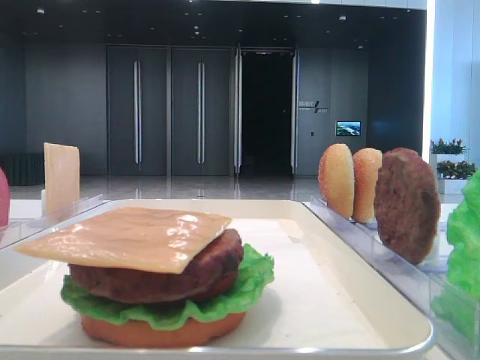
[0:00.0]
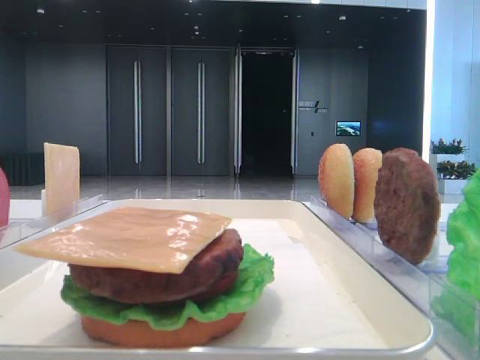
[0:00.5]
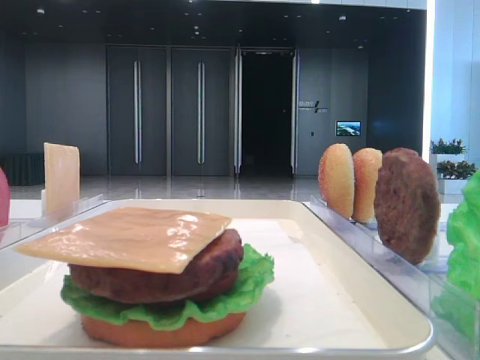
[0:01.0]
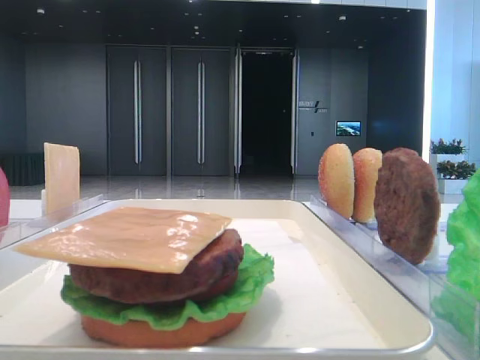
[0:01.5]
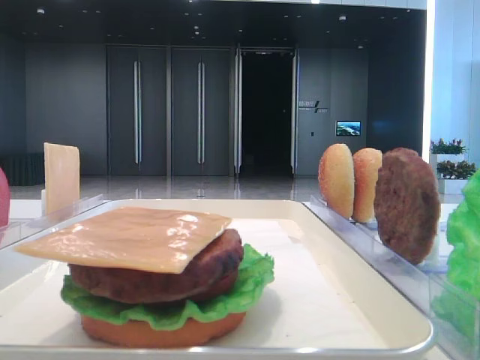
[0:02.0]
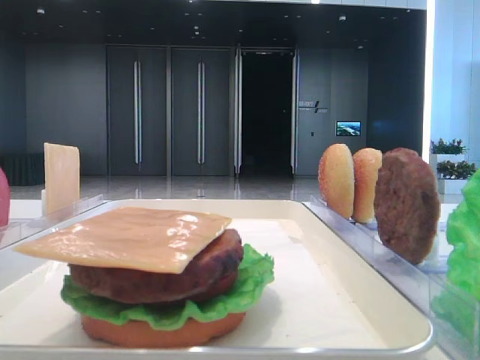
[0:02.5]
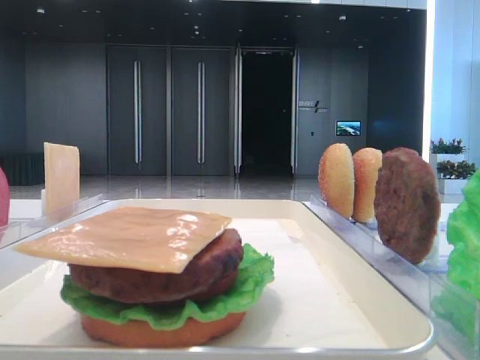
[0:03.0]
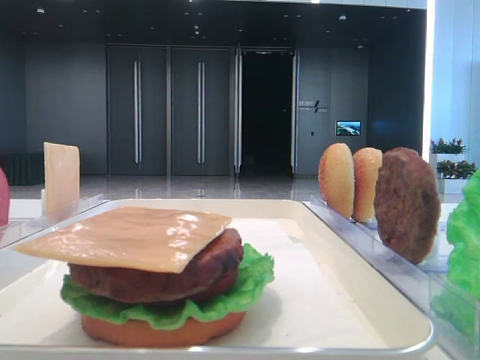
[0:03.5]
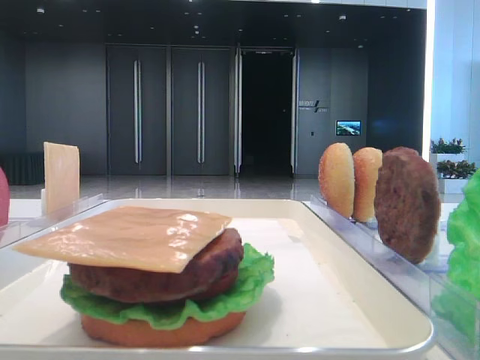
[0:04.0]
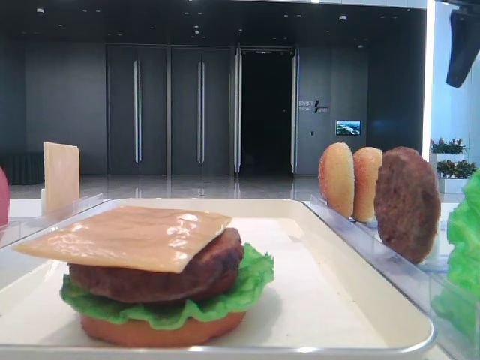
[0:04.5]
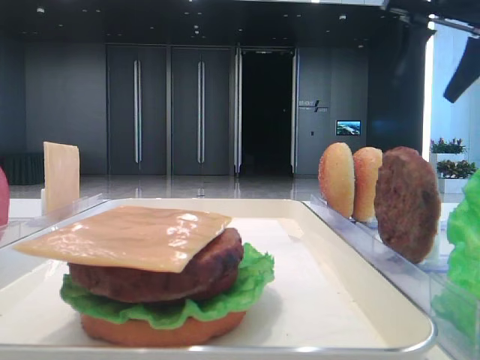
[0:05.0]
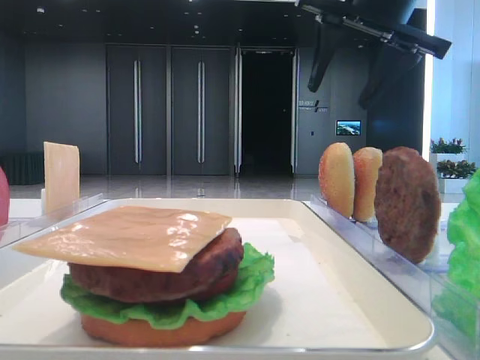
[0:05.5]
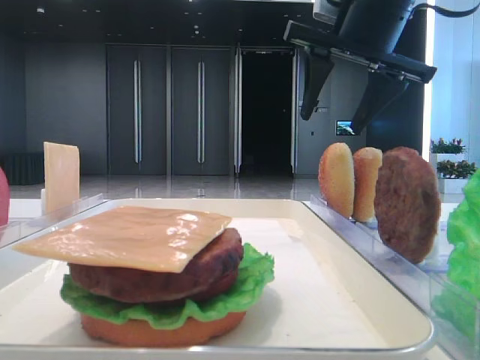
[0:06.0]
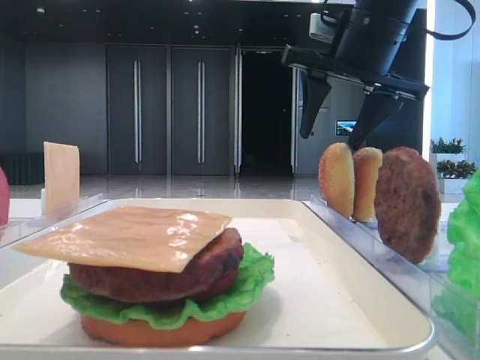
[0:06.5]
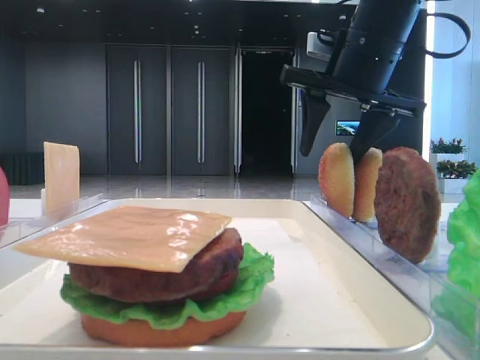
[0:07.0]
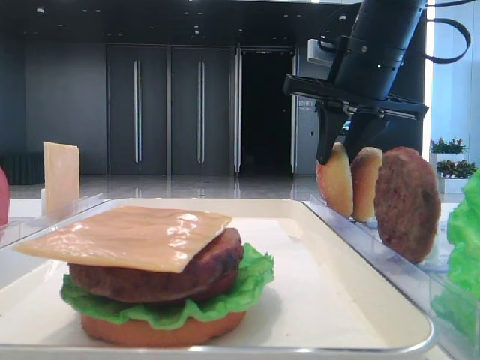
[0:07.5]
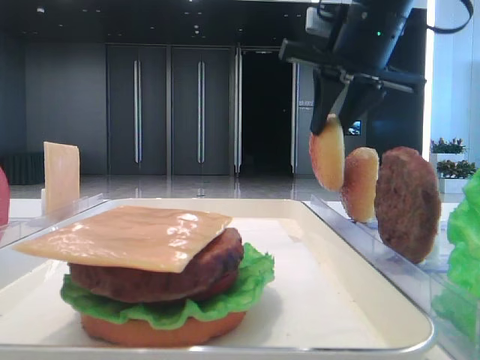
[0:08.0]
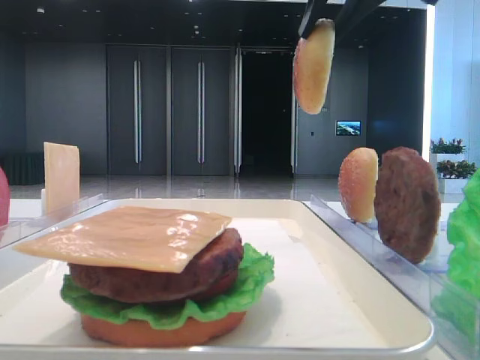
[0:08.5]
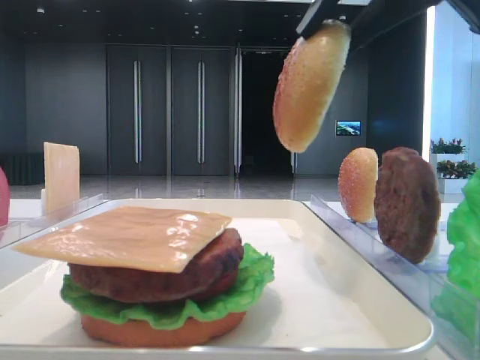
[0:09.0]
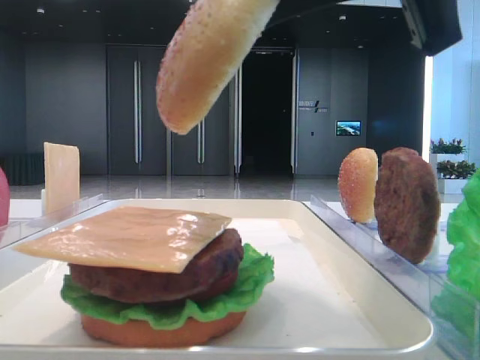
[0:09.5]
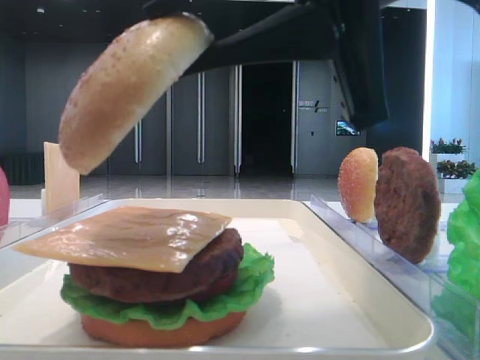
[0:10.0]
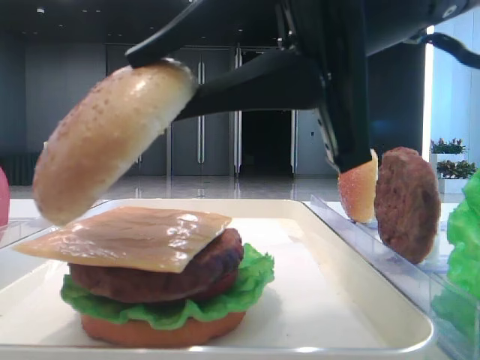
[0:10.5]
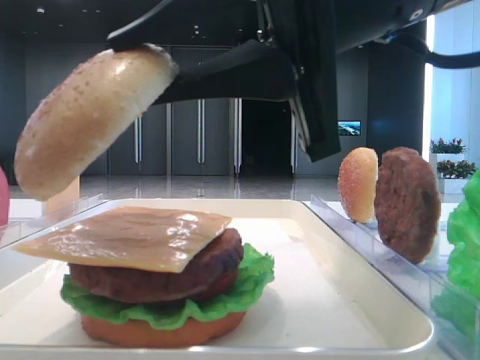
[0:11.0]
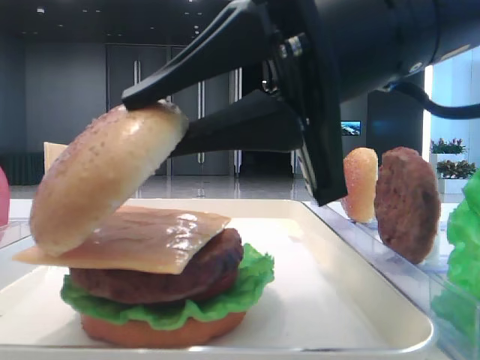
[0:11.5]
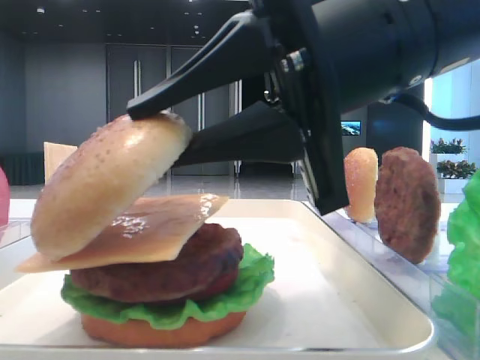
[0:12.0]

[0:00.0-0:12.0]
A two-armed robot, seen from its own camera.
Step, 0:00.0 to 0:07.5: Pick up the top bread slice with the right hand.
0:04.0 to 0:06.0: The right gripper heads to the left and forward, covering about 15 cm.
0:06.0 to 0:08.0: The right gripper closes.
0:08.0 to 0:10.0: The right gripper moves backward, roughly 20 cm.
0:10.0 to 0:12.0: The right gripper travels downward by approximately 5 cm.

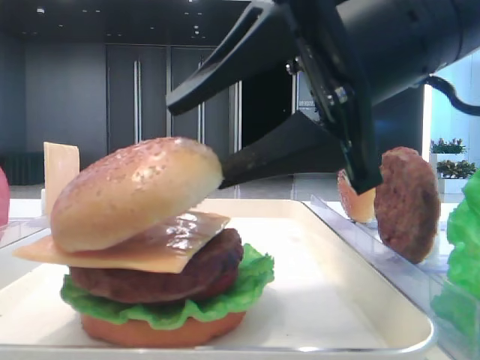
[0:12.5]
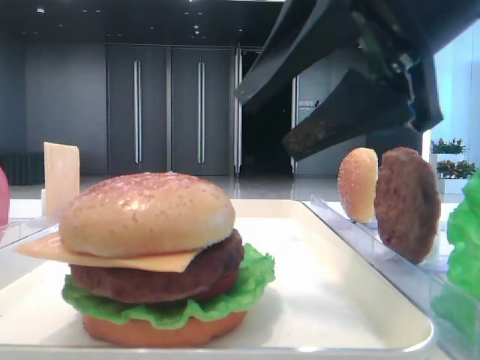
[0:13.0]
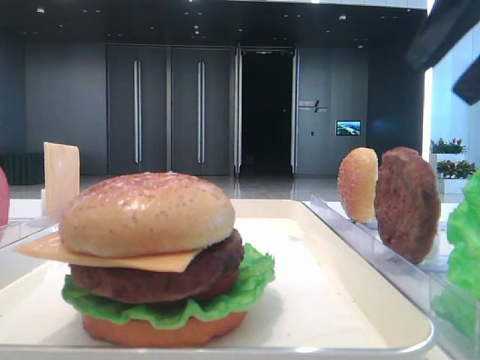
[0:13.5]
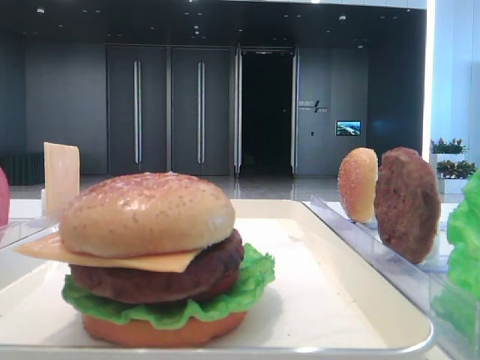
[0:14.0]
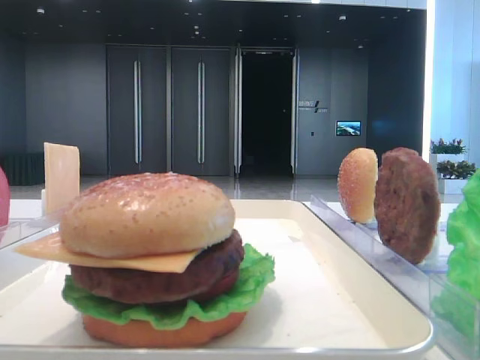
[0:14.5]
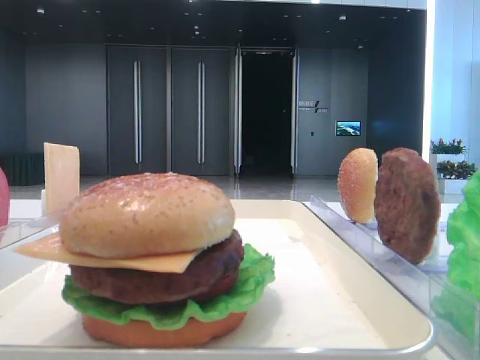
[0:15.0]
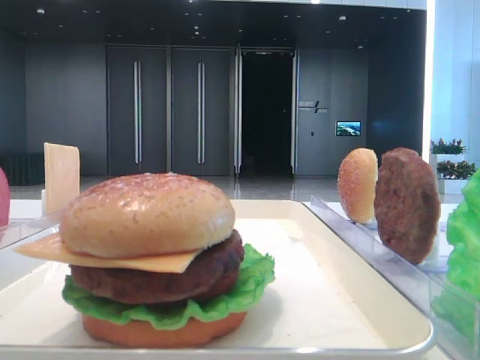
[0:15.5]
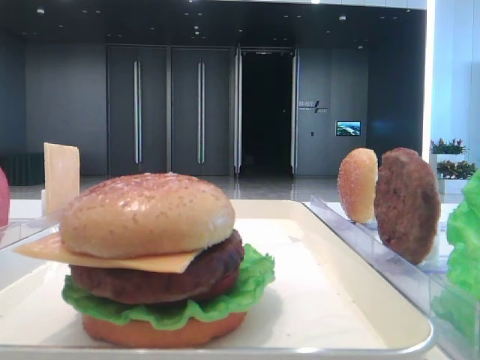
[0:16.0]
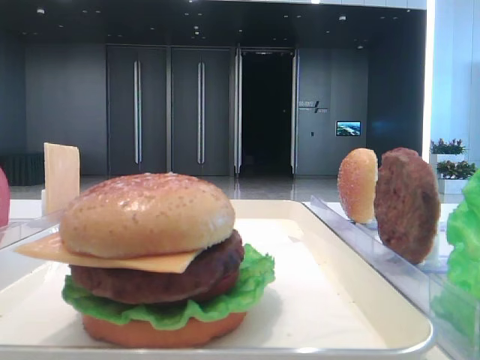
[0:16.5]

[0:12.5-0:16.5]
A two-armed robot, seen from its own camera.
0:12.5 to 0:14.5: The right gripper is displaced to the right, backward and upward by approximately 25 cm.

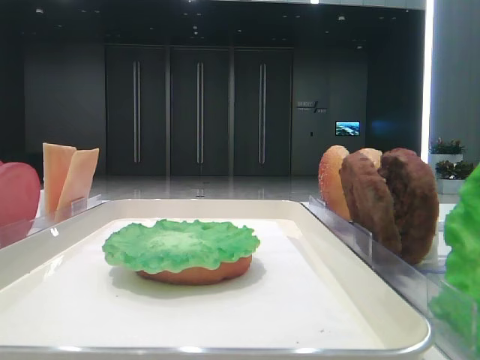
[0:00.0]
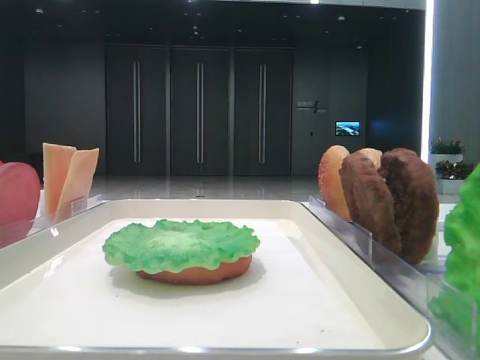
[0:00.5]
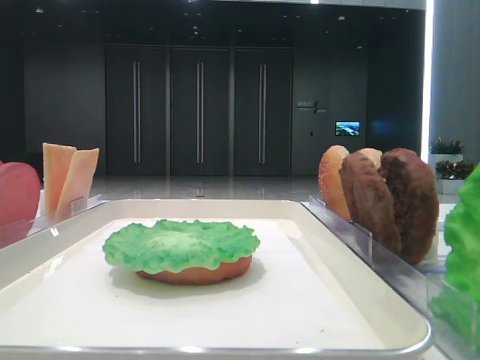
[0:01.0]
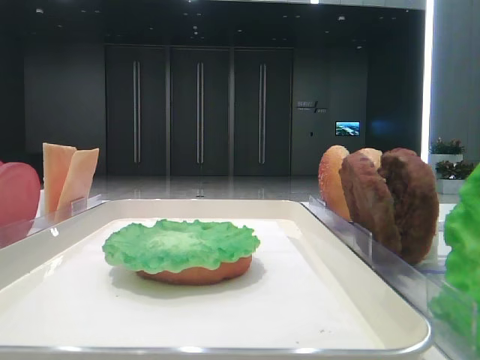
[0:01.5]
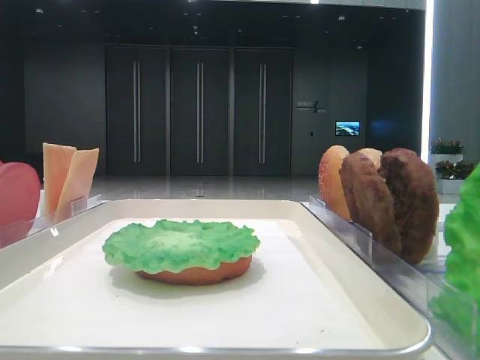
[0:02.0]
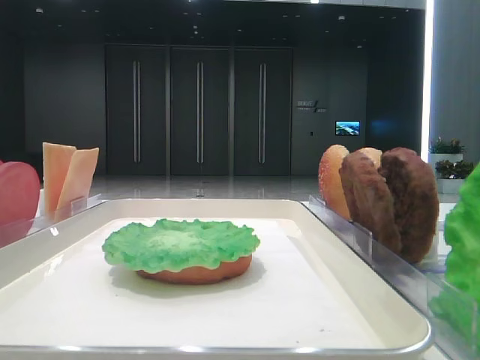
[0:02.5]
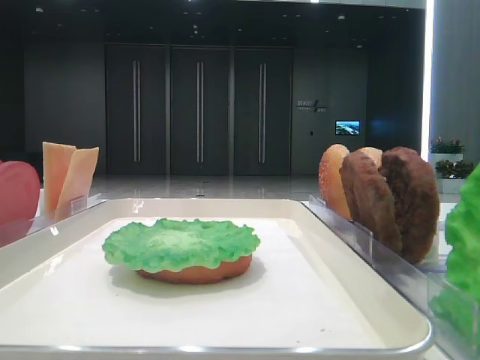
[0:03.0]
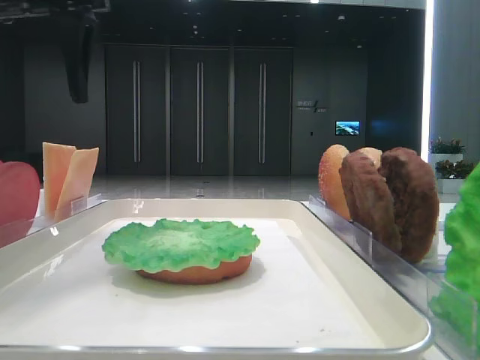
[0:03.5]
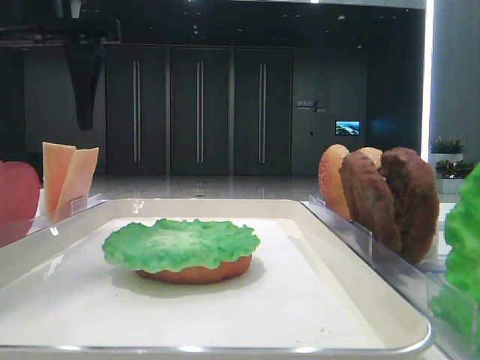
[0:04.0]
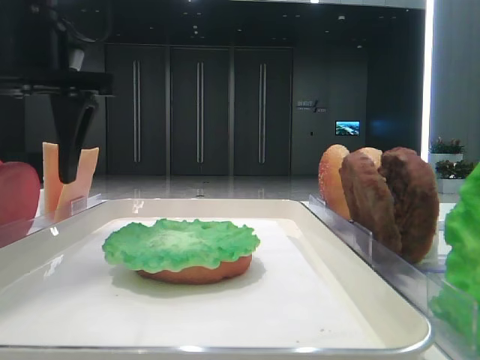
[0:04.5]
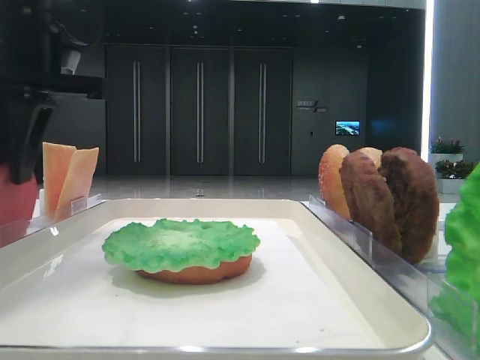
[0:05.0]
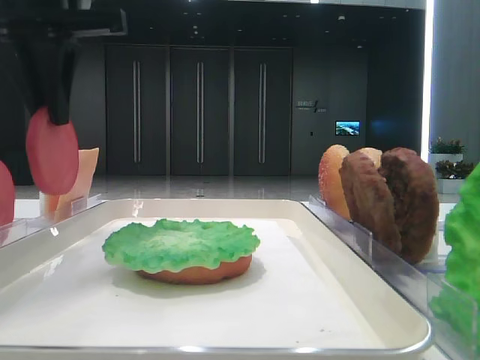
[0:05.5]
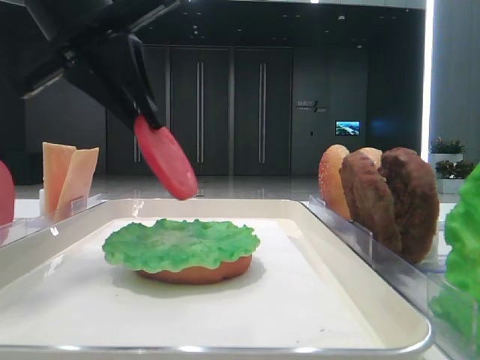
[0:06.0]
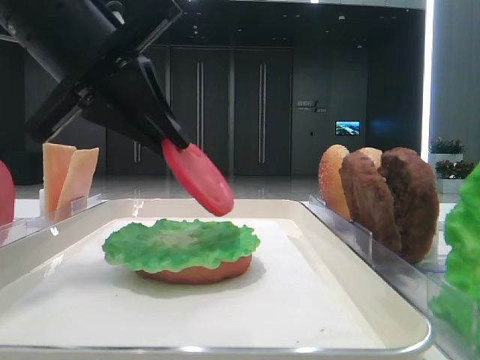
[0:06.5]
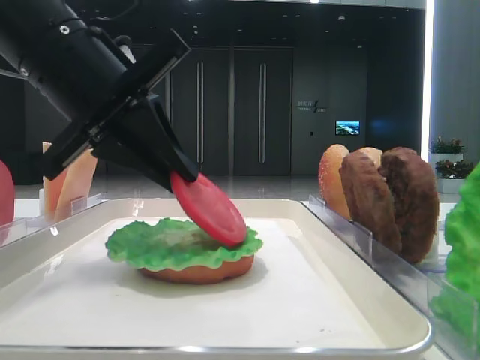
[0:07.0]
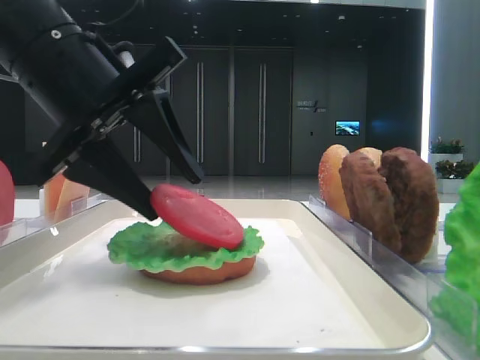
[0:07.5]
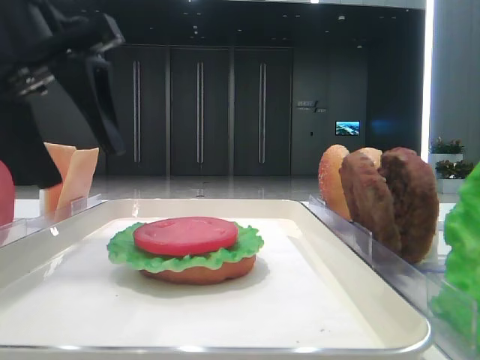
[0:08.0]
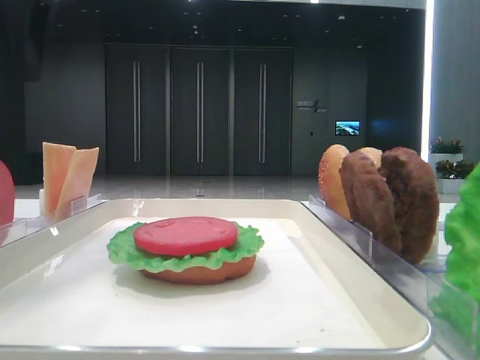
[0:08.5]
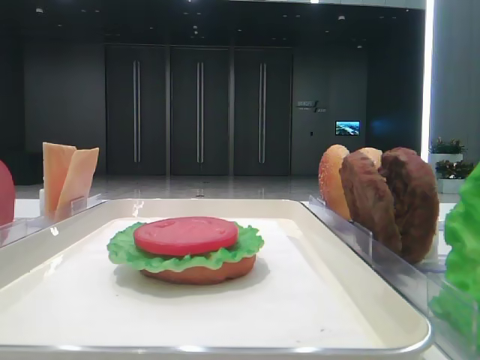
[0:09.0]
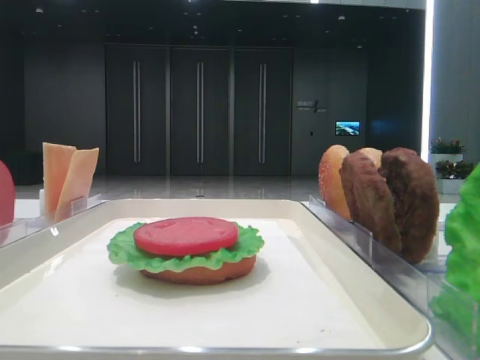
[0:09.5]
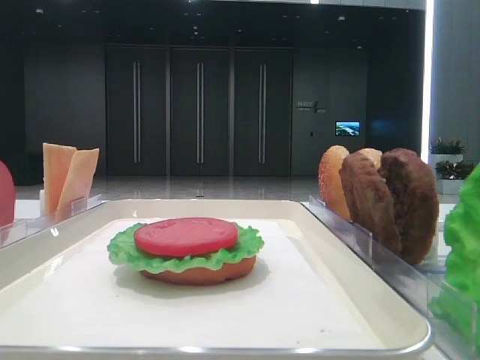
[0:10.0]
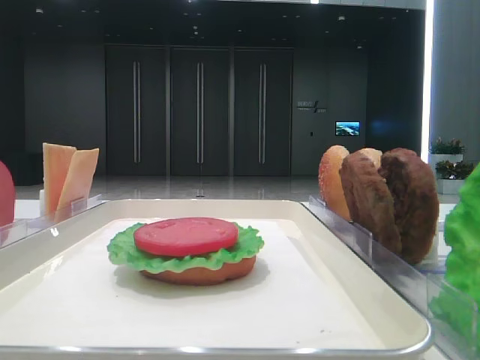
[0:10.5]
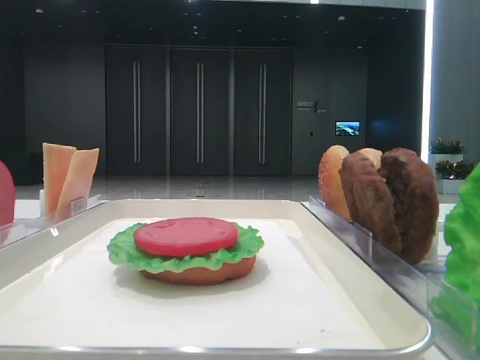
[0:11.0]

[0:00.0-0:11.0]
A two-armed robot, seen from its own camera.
Step, 0:00.0 to 0:04.5: Pick up the tomato slice with the left hand.
Step, 0:05.5 to 0:07.5: Place the tomato slice on the lettuce leaf with the left hand.
0:02.0 to 0:03.5: The left gripper moves forward and to the right, about 35 cm.
0:03.5 to 0:05.5: The left gripper closes.
0:05.5 to 0:07.5: The left gripper heads downward, covering some 10 cm, and opens.
0:07.5 to 0:09.0: The left gripper heads to the left and upward, covering roughly 25 cm.
